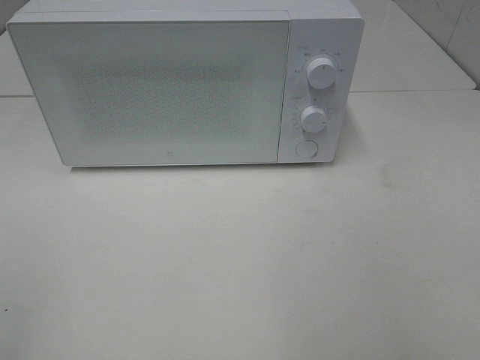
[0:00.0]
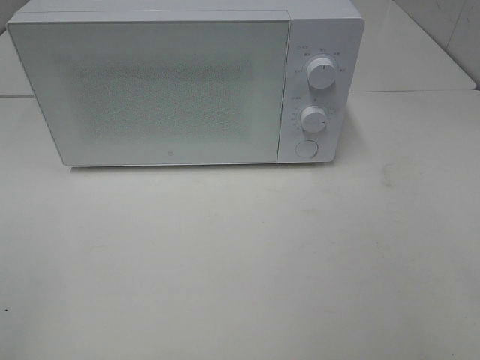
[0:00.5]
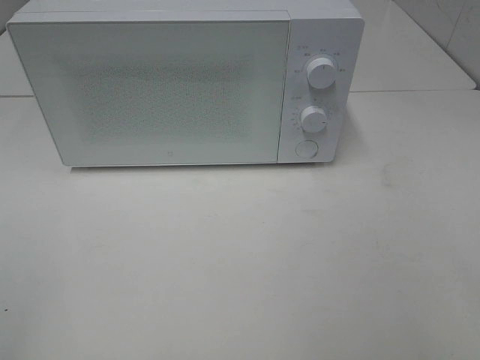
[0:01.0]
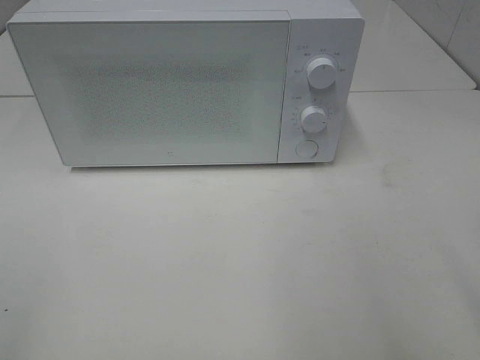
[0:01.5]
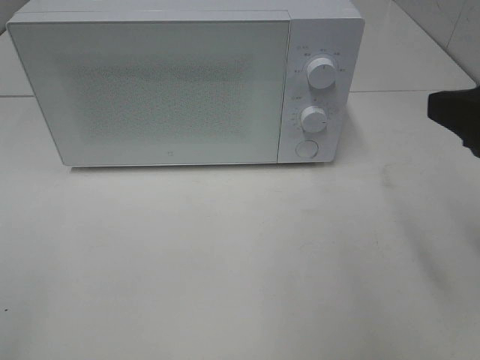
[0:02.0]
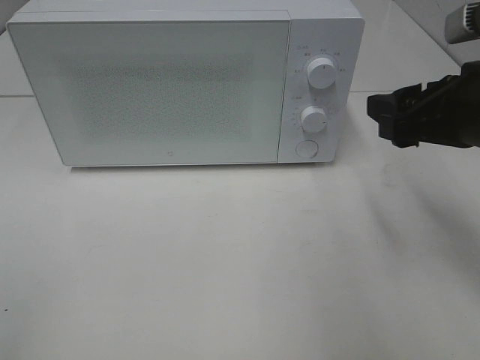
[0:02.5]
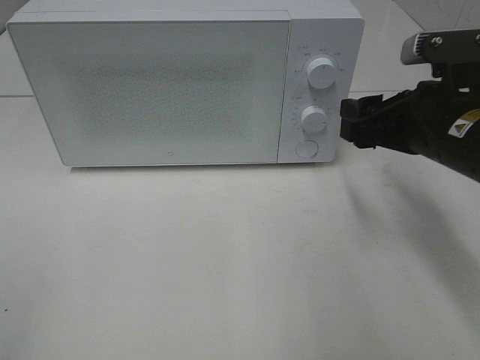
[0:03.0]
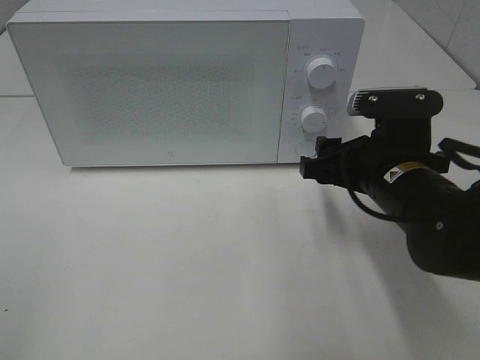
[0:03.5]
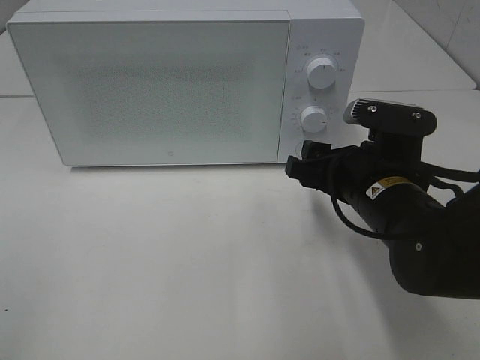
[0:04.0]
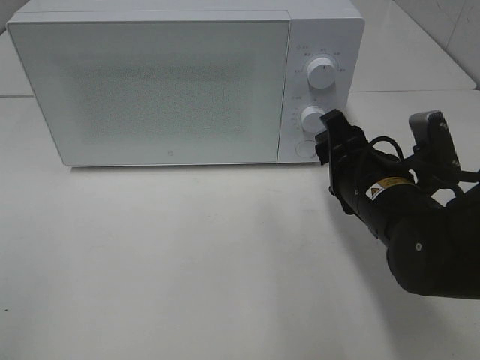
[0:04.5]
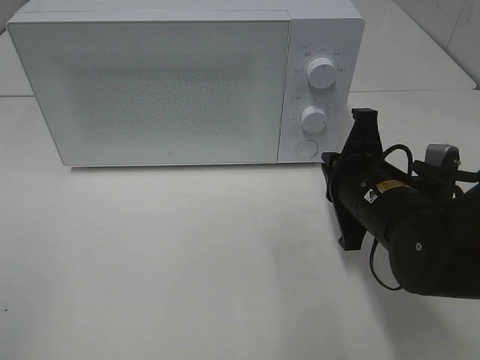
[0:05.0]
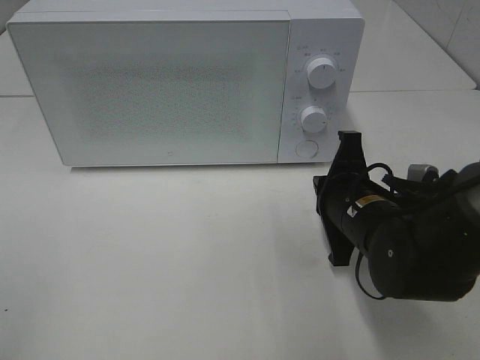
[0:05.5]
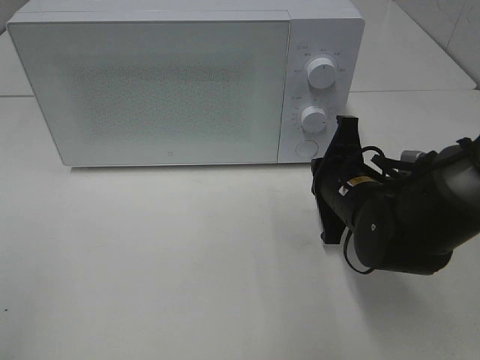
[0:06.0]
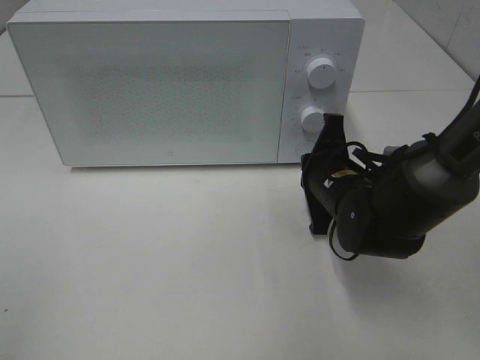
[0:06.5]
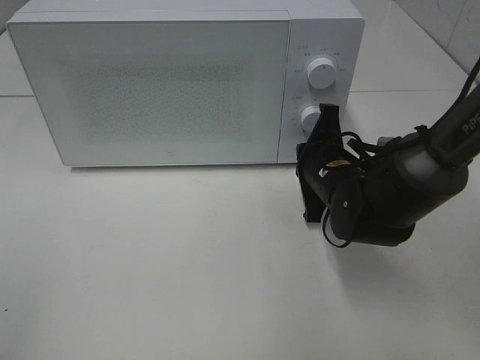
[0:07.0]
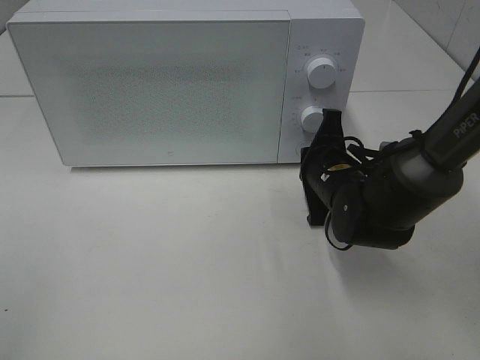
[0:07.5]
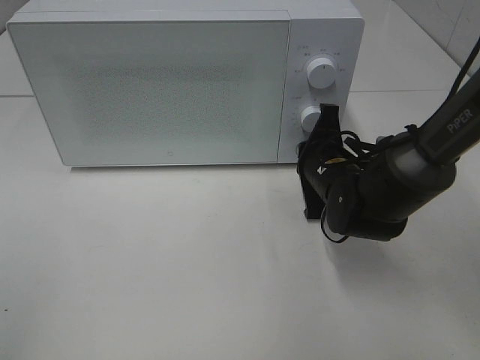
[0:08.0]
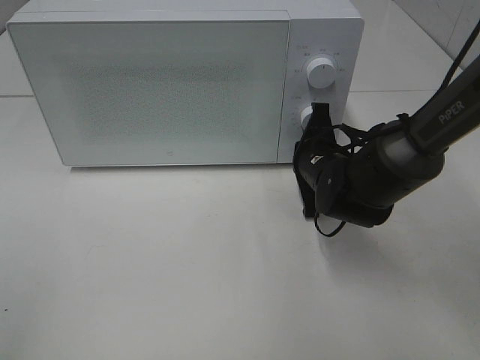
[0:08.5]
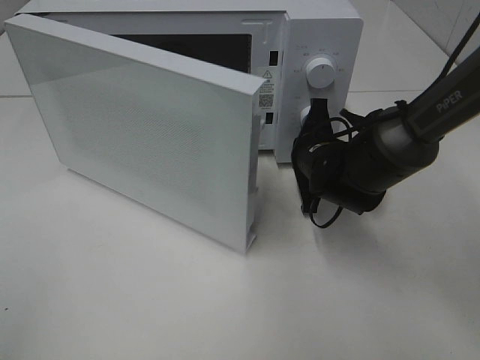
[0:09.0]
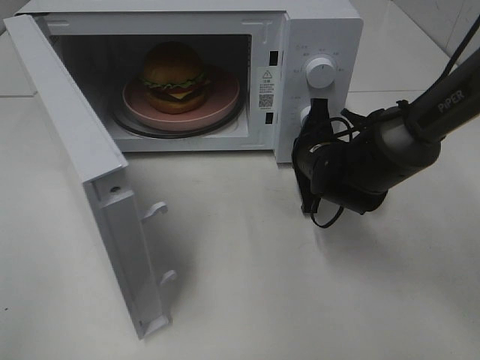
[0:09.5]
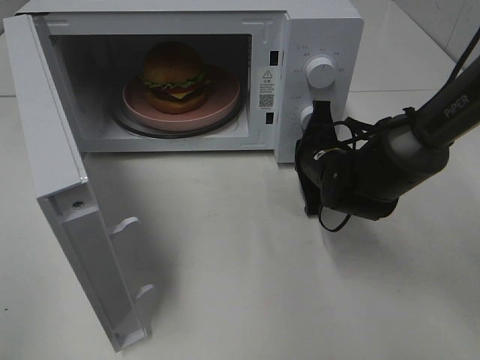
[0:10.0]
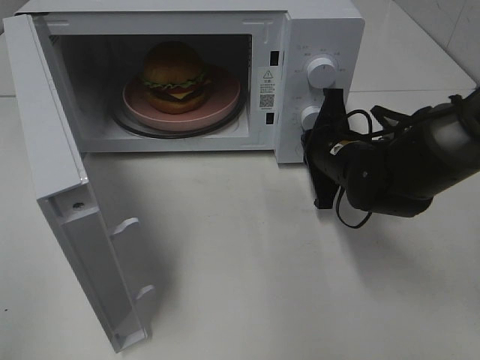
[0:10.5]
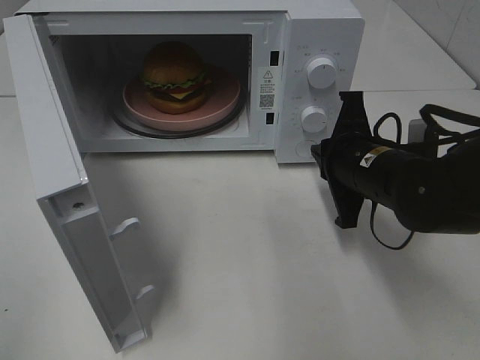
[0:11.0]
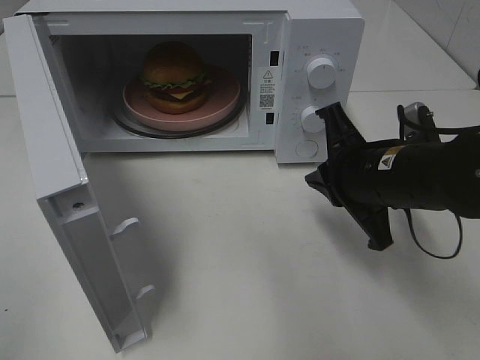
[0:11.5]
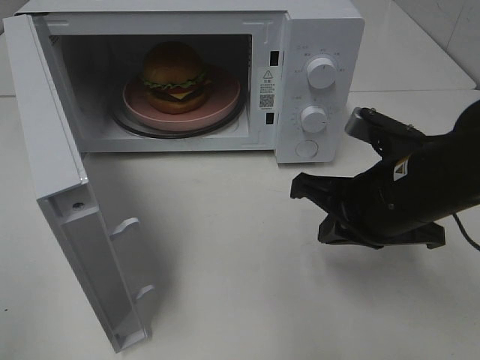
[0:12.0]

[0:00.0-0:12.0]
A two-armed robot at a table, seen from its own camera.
Task of the whole recording: Heat the burger.
Step, 0:00.0 to 0:10.5: Right hand: press the switch.
0:00.0 to 0:02.0: The right gripper is displaced forward by some 15 cm.
0:02.0 to 0:04.0: The right gripper heads downward, to the left and forward, covering some 20 cm.
0:04.0 to 0:06.0: The right gripper moves about 5 cm, and closes its fingers.
0:06.0 to 0:08.0: The right gripper goes about 5 cm forward.
0:10.0 to 0:12.0: The right gripper travels backward and upward by some 15 cm.

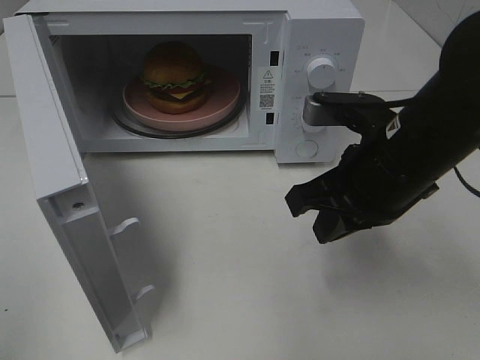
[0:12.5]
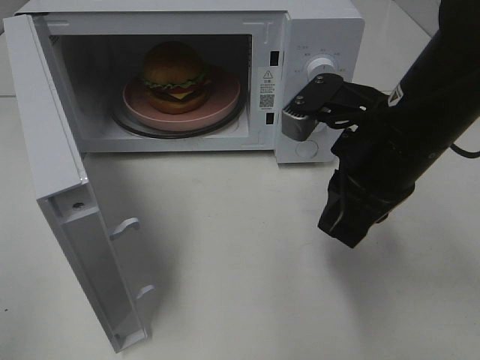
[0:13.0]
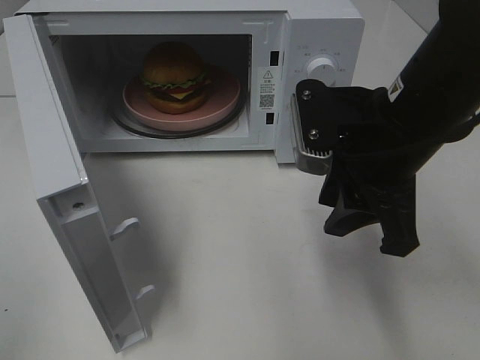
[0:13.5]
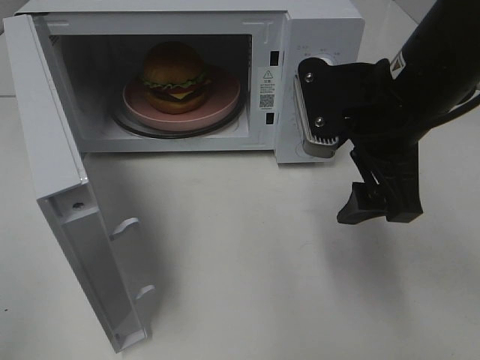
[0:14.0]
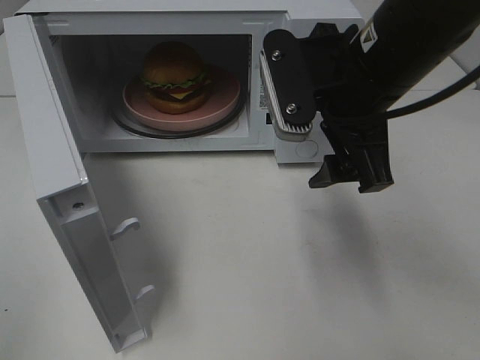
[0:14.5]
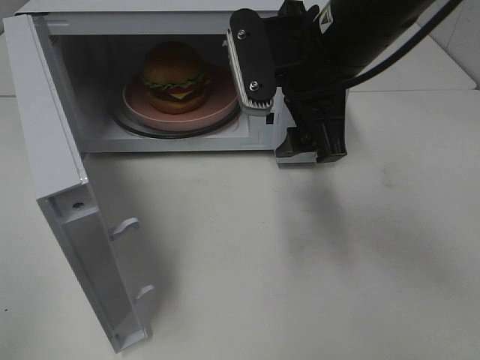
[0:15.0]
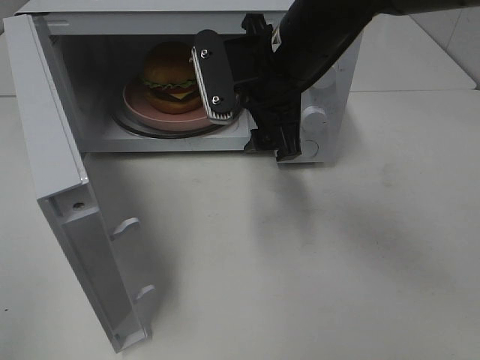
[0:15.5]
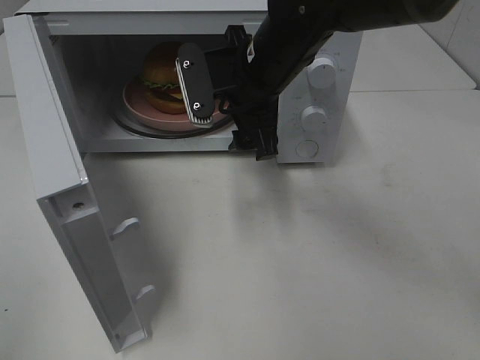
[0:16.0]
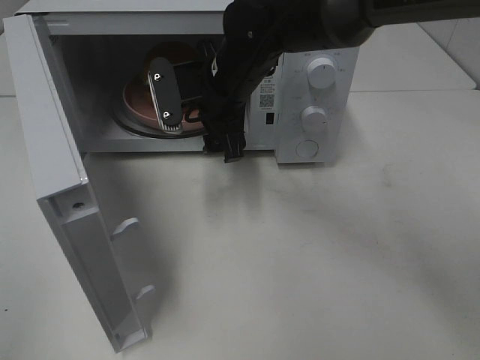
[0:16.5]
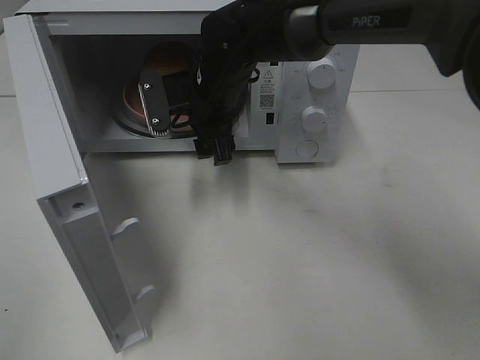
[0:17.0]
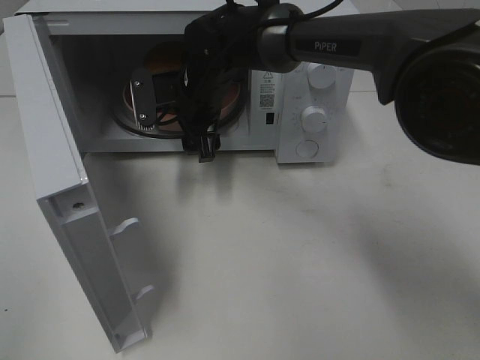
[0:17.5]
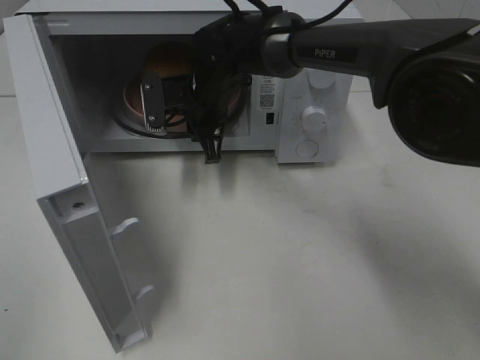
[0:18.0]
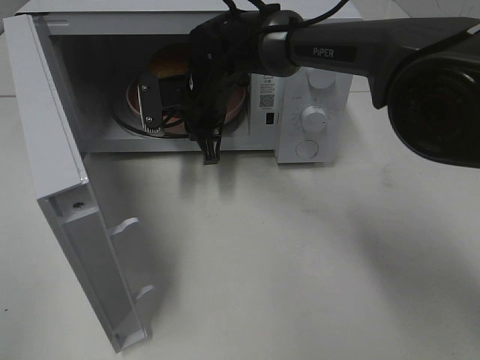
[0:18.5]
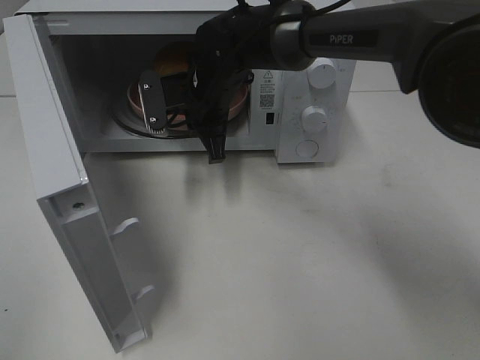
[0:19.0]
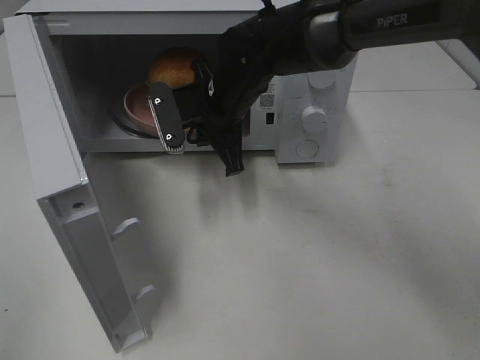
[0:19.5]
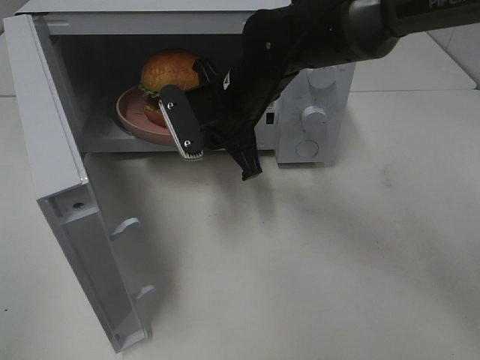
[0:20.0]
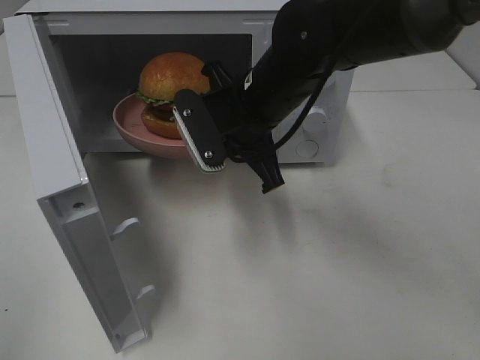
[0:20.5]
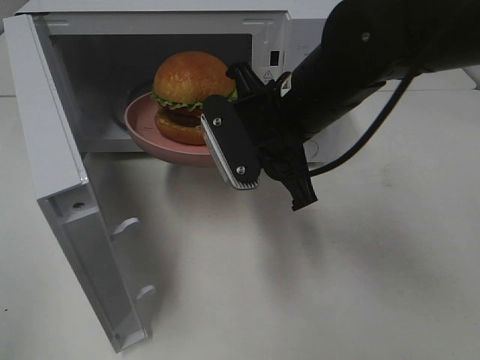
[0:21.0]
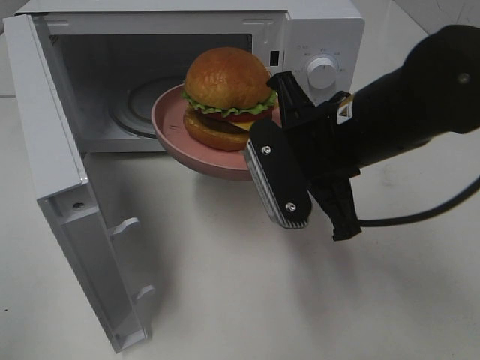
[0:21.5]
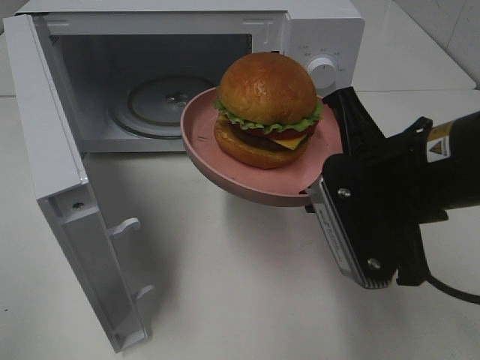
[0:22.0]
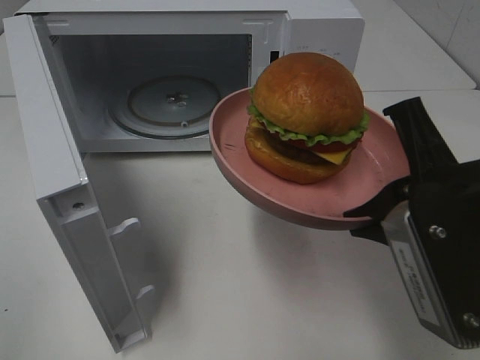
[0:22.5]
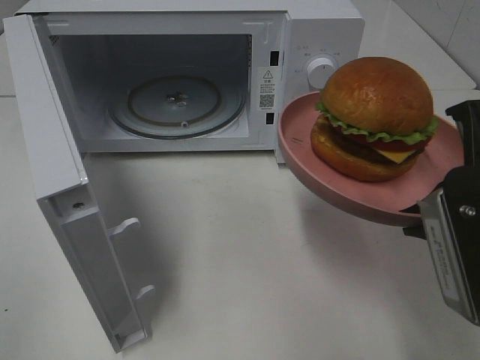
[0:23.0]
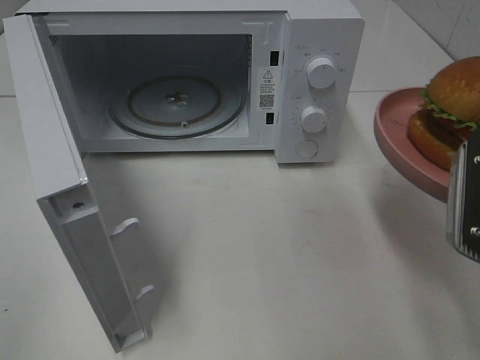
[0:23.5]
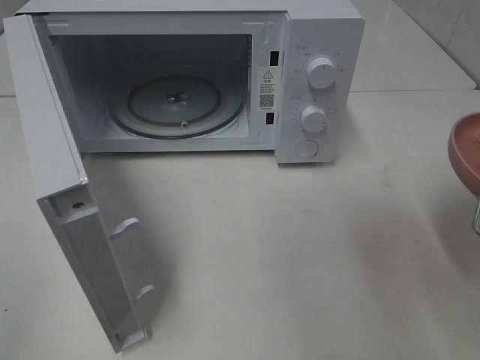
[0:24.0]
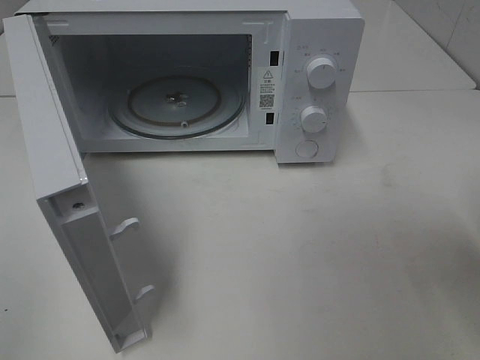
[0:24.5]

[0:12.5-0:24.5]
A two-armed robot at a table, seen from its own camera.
Task of the whole recording: Heat the burger.
Step, 0:12.5 to 0:18.0: Right hand: grab the plate with the hamburger.
0:12.5 to 0:14.5: The right gripper moves upward, some 5 cm, and opens its fingers.
0:14.5 to 0:16.5: The right gripper shifts about 20 cm forward, to the left and downward.
0:16.5 to 0:18.5: The right gripper goes approximately 5 cm forward, and closes.
0:18.5 to 0:20.5: The right gripper heads backward, to the right and upward, covering some 15 cm.
0:20.5 to 0:22.5: The right gripper is displaced backward and to the right by about 25 cm.
0:22.5 to 0:24.5: The right gripper goes approximately 10 cm to the right.

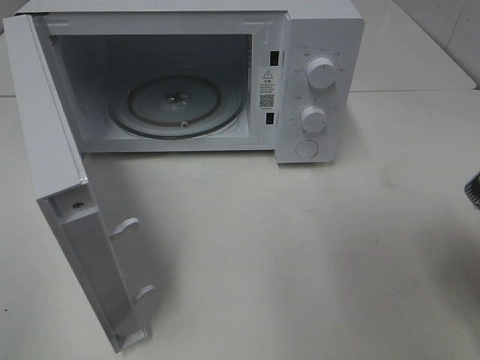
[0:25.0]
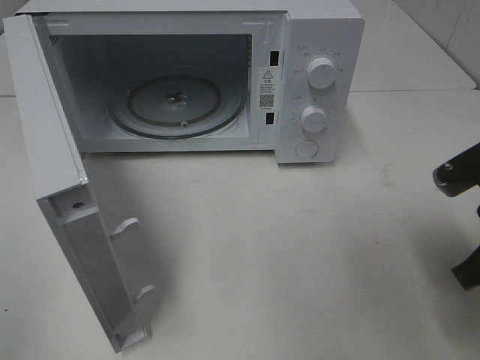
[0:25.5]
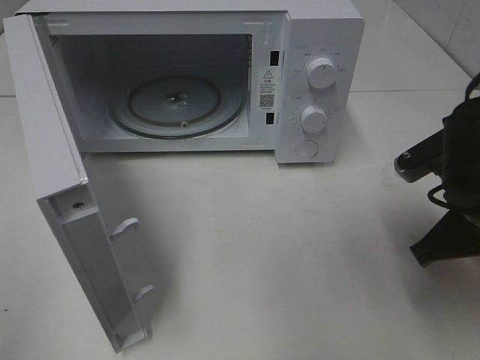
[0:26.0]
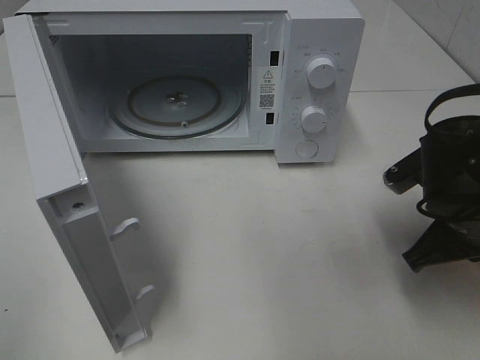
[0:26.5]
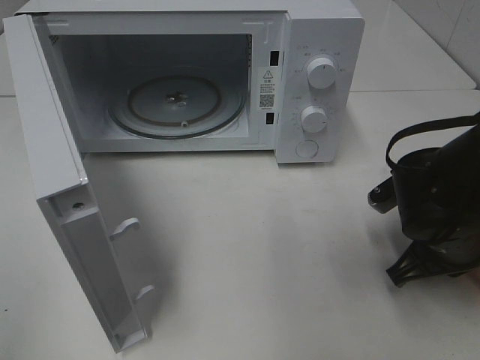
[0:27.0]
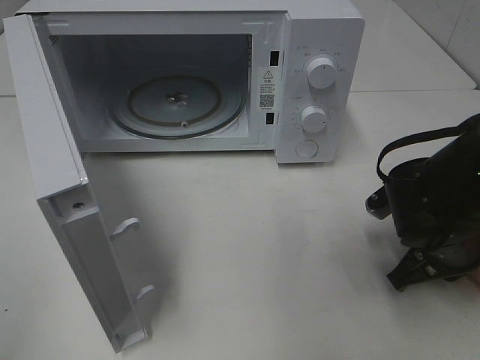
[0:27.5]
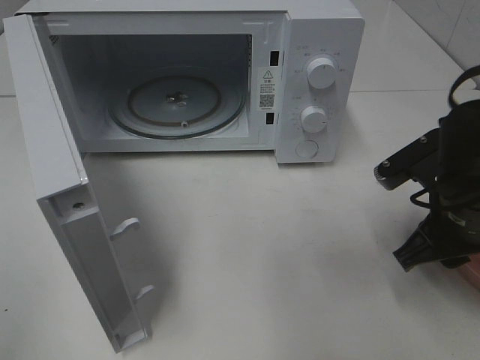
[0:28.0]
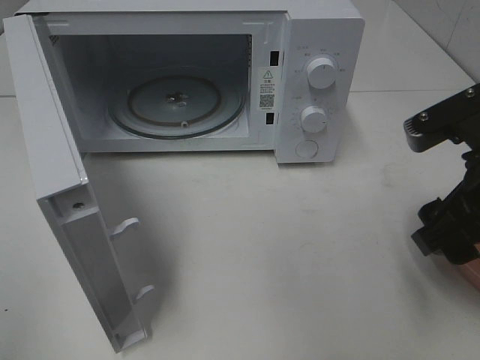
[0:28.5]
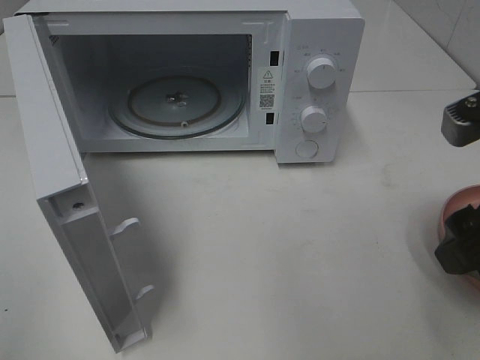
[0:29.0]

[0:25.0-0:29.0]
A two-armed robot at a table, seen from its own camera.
Task of the whole recording: Heat the burger.
Step, 0:25.0 to 0:28.0: Right hand: place the plate on the table.
0:25.0 to 0:27.0: The right gripper moves downward and forward, approximately 15 cm.
0:27.0 to 0:29.0: The right gripper goes about 20 cm upward and backward, and opens up.
